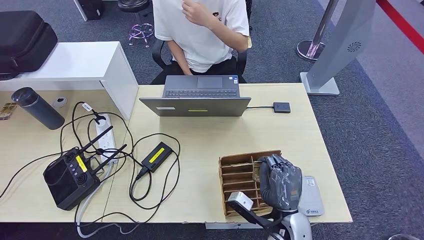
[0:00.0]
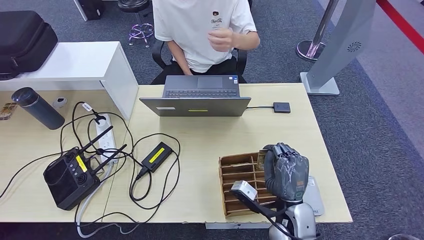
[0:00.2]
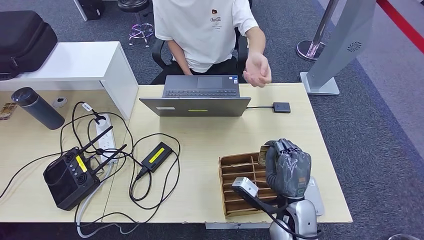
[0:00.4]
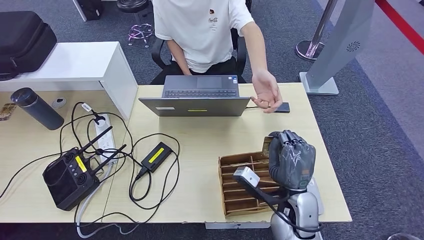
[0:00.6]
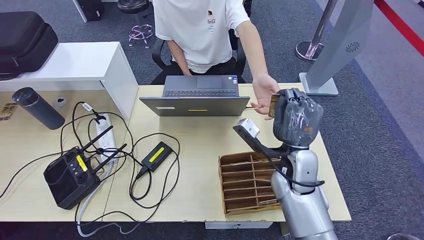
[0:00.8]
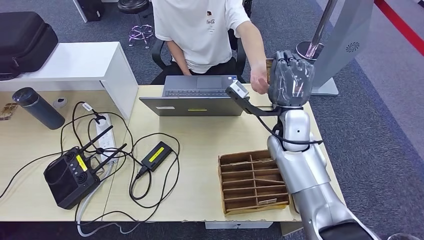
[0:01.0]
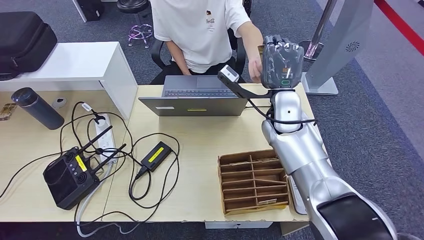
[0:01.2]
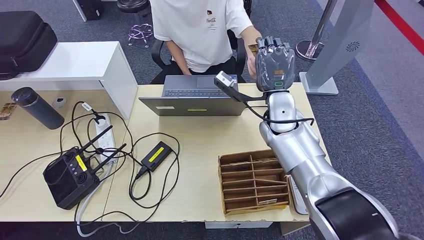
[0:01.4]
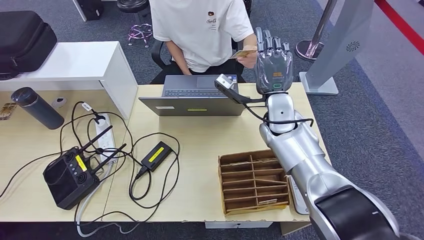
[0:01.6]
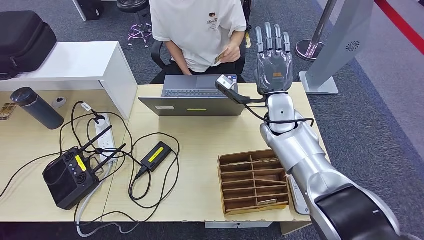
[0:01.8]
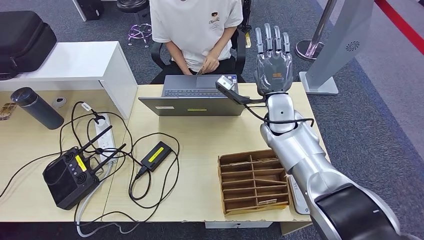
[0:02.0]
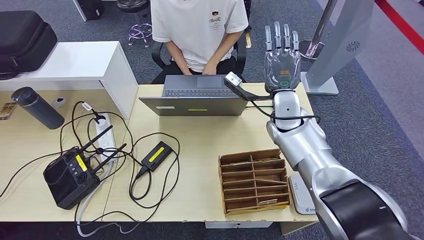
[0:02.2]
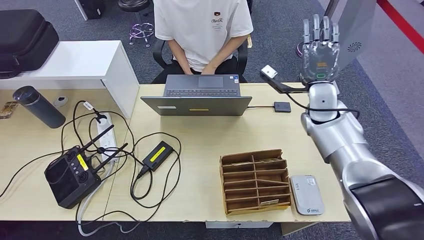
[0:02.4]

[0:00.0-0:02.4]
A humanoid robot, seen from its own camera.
Step, 0:00.4 to 0:02.4: Hand the room key to the person.
0:00.0 to 0:01.2: The right hand travels forward and upward by approximately 30 cm.
